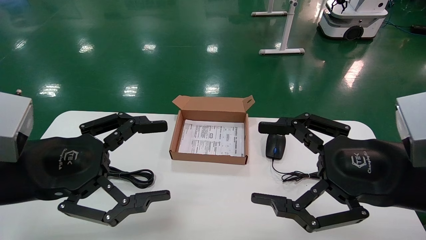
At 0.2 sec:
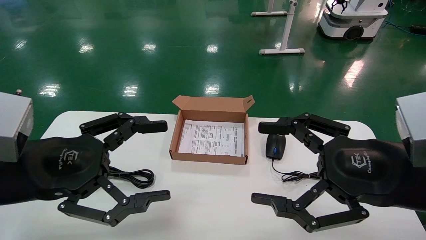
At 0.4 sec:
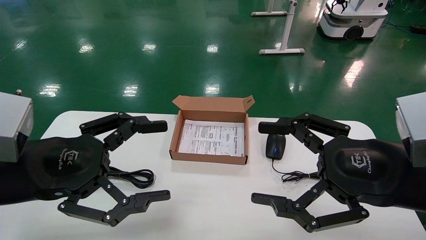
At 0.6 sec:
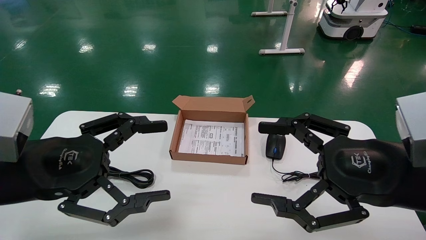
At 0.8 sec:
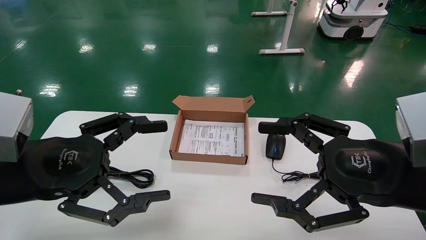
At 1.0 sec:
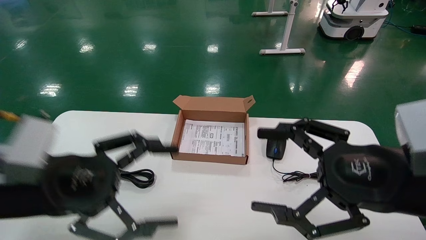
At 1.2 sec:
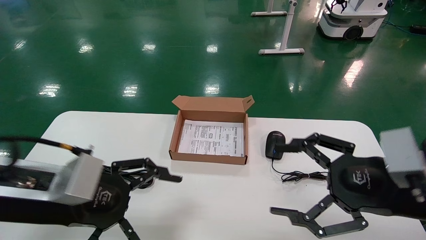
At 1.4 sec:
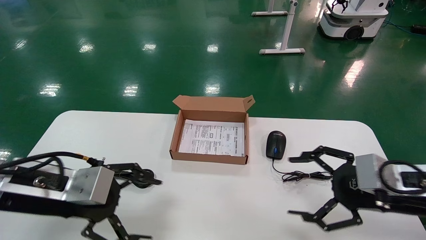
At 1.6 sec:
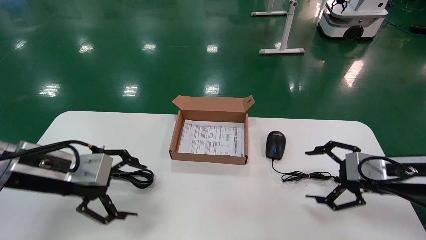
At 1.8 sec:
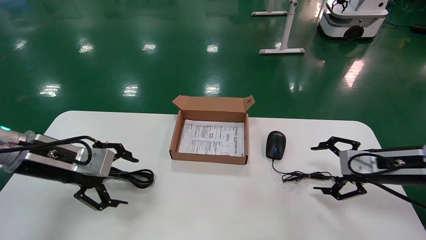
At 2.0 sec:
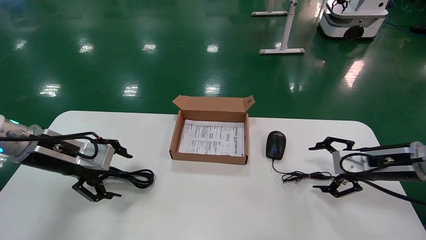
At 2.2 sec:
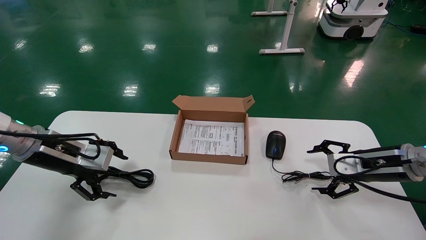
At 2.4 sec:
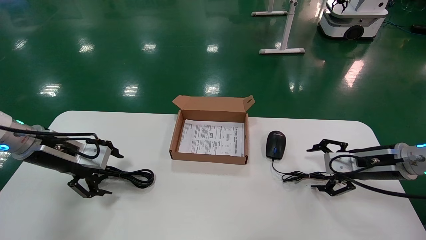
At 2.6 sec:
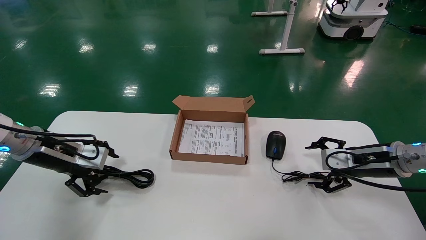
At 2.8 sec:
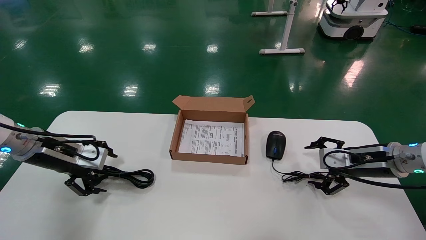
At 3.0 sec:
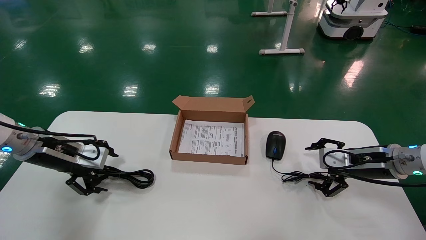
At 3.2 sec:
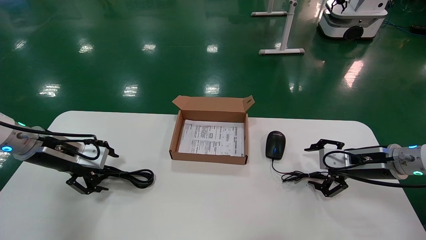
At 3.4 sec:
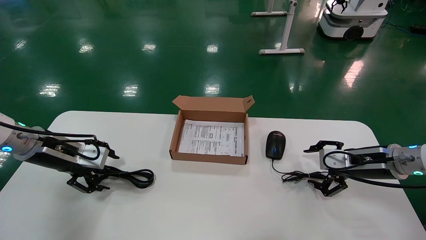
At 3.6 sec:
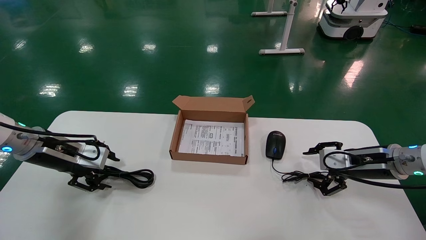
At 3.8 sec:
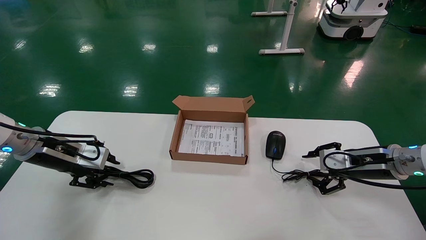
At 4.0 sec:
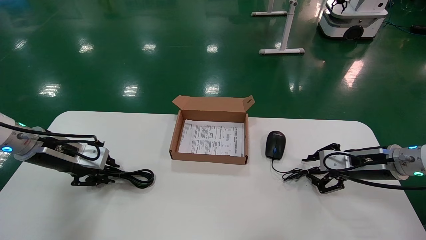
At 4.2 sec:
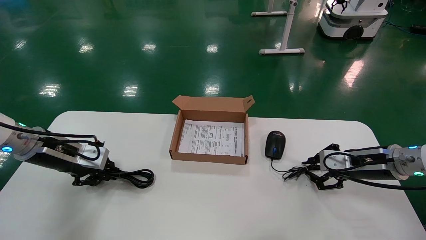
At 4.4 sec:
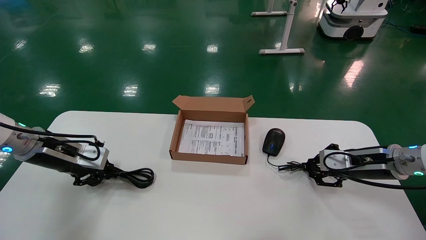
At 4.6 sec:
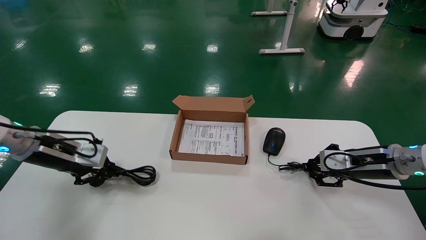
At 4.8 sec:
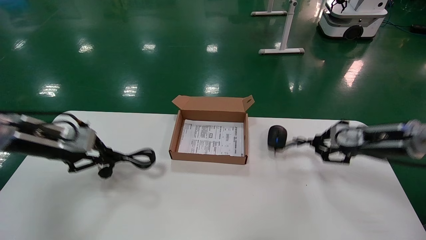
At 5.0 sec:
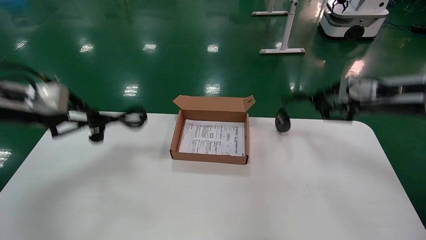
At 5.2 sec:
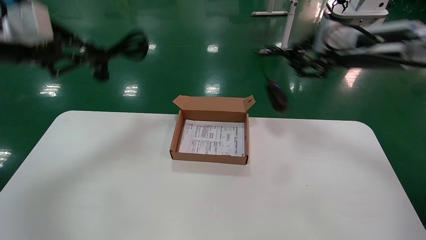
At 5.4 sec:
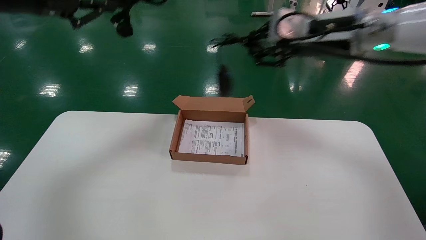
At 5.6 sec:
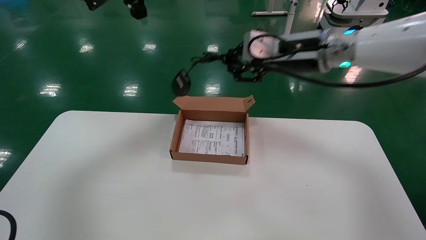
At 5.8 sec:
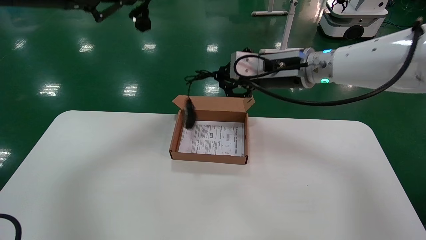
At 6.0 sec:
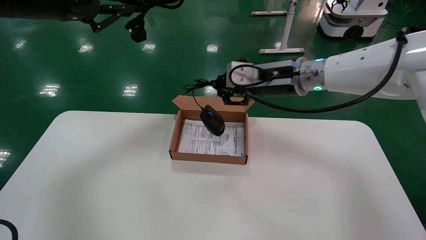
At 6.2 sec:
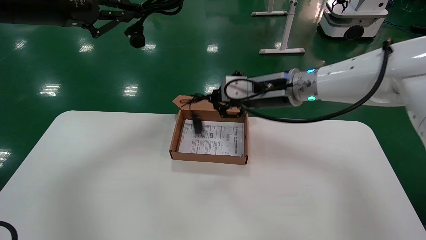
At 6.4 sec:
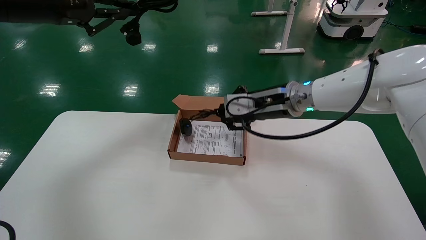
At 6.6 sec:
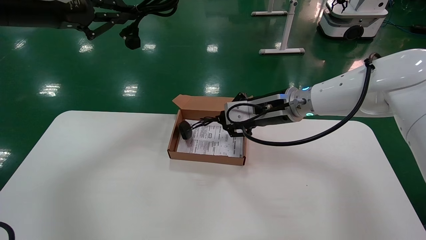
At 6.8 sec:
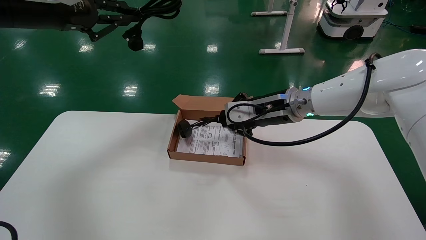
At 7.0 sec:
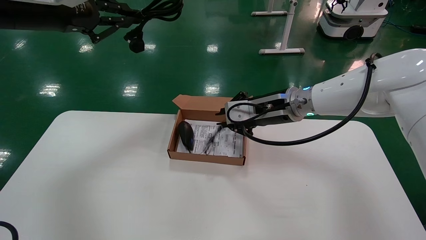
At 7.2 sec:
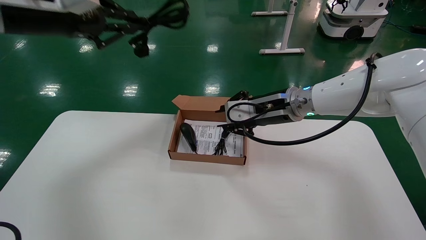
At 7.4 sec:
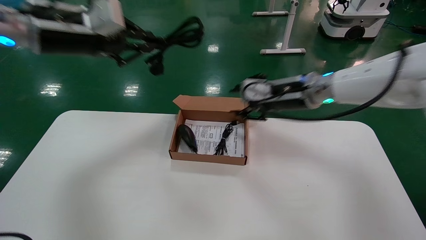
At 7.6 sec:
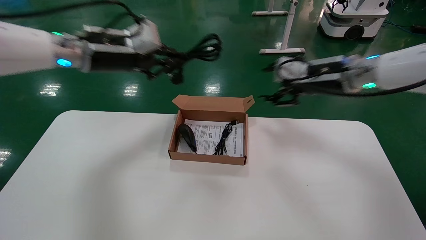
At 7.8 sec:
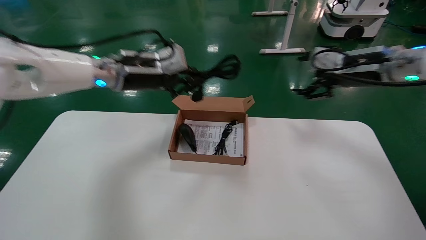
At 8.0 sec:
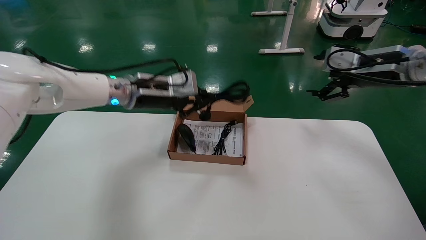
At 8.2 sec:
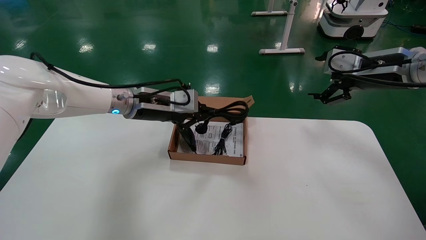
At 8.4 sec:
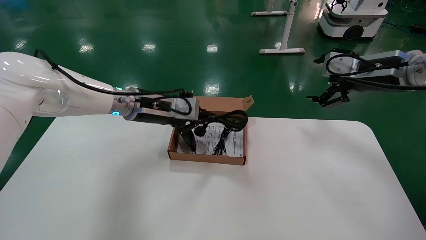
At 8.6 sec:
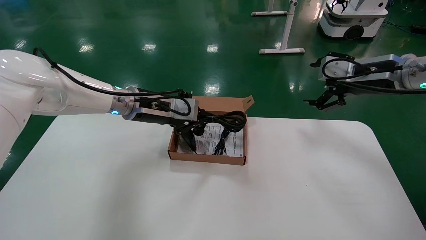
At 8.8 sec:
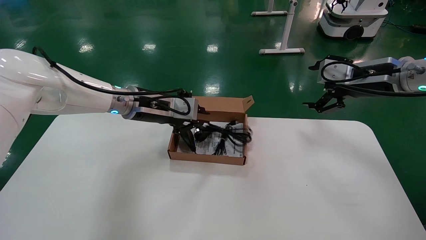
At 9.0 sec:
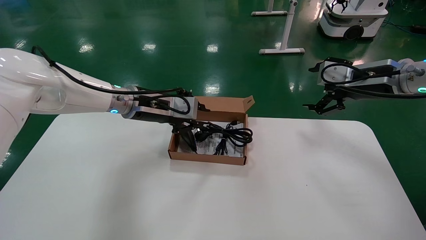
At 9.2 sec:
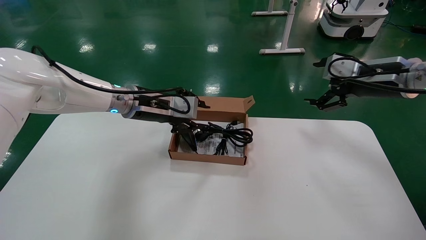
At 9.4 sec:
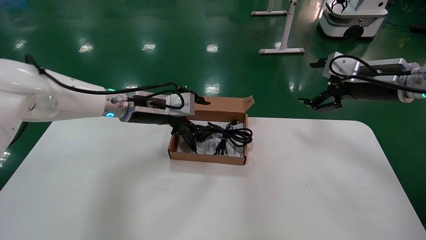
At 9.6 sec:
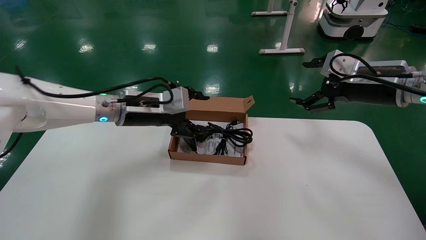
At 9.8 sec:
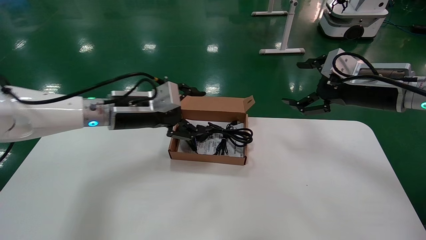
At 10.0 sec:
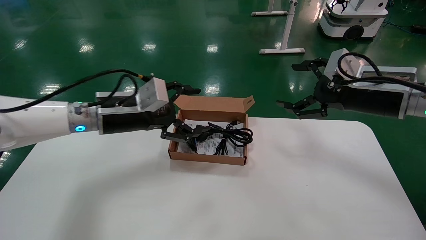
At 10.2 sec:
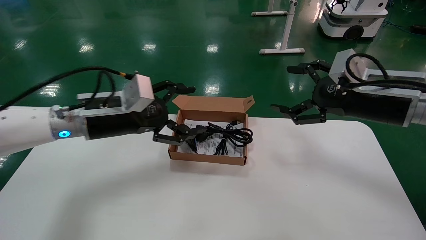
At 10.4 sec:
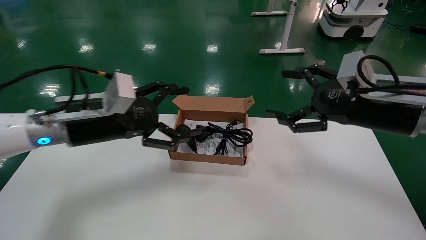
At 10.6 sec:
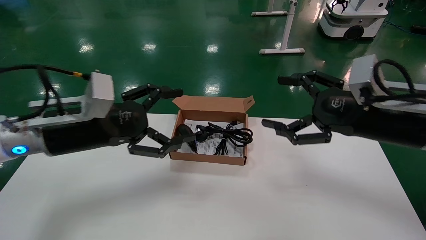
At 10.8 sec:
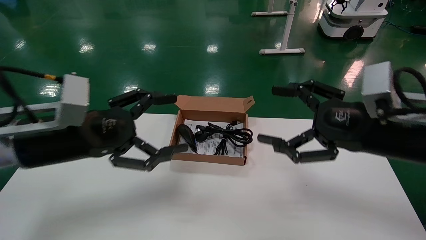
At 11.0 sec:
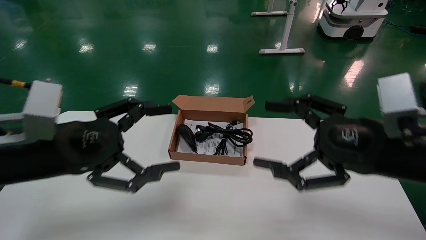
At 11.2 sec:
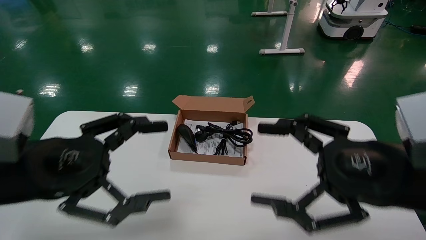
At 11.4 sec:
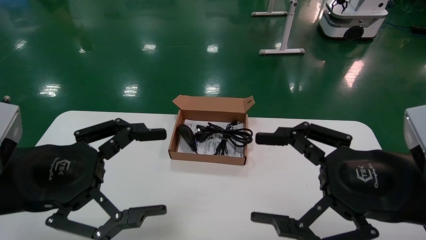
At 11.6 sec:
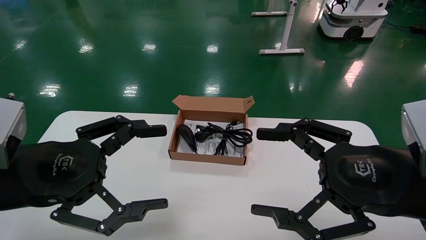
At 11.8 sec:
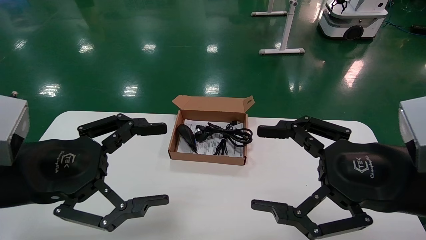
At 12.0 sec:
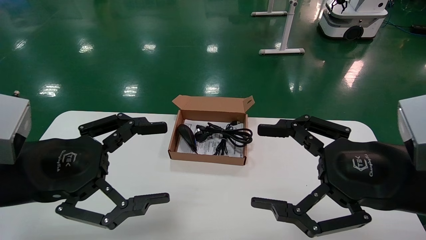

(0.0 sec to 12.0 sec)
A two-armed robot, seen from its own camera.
Step, 1.4 sec - 4.6 sec: Grab and lift both the mouse and power cord from the accessory packaging area at the same time.
Step, 4.8 sec - 9.2 sec: Place the mouse and power cord into the box.
0.0 sec - 1.6 sec: The right gripper shifts approximately 15 cm forward, to the right and downward; the left gripper heads forward, covering about 10 cm.
1.6 sec - 3.0 sec: The right gripper goes roughly 10 cm forward; the left gripper goes some 10 cm forward and to the left.
3.0 sec - 4.4 sec: The left gripper closes up, while the right gripper closes up.
4.4 sec - 6.0 sec: The right gripper heads to the left and upward, covering about 25 cm. The left gripper travels upward by roughly 25 cm.
6.0 sec - 7.6 sec: The right gripper shifts approximately 10 cm to the right, and opens its fingers. The left gripper is displaced downward, to the right and forward by about 15 cm.
7.6 sec - 9.0 sec: The left gripper goes some 10 cm downward and to the right; the right gripper heads to the right, covering some 10 cm, and opens its fingers.
9.0 sec - 10.4 sec: The right gripper heads backward, covering approximately 10 cm; the left gripper heads backward and to the left, covering about 15 cm, and opens its fingers.
10.4 sec - 12.0 sec: The grippers both shift backward by about 15 cm.

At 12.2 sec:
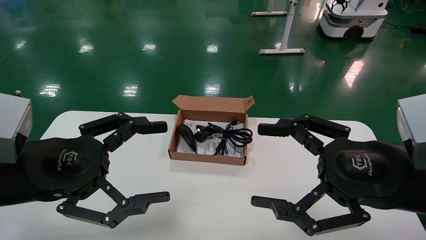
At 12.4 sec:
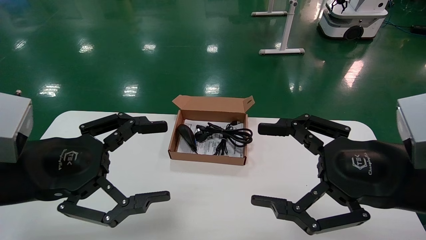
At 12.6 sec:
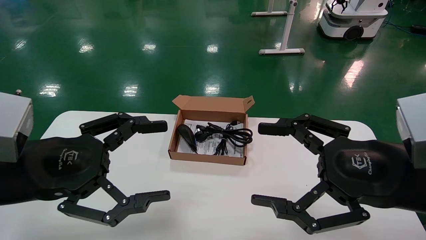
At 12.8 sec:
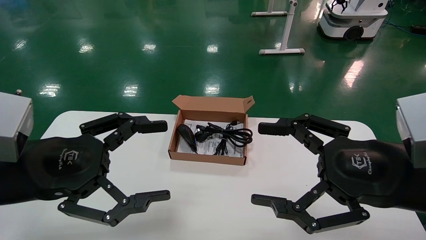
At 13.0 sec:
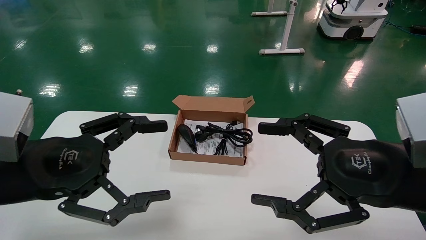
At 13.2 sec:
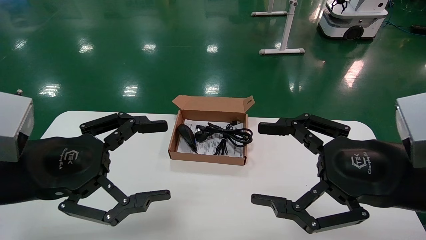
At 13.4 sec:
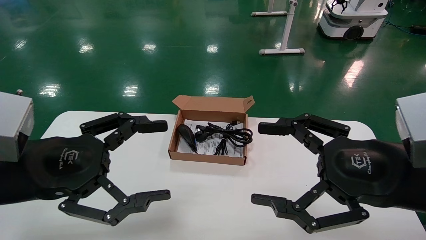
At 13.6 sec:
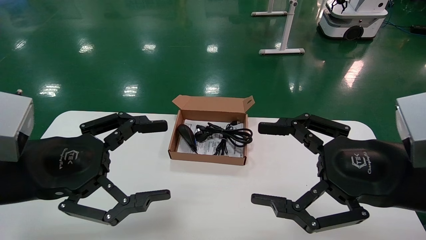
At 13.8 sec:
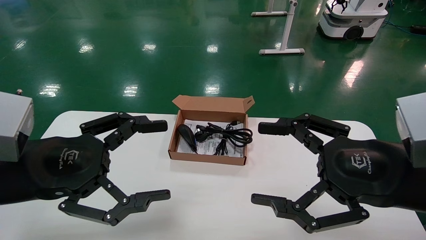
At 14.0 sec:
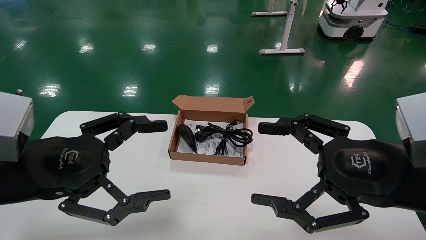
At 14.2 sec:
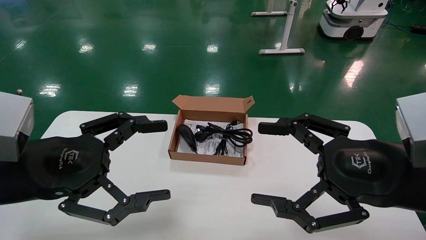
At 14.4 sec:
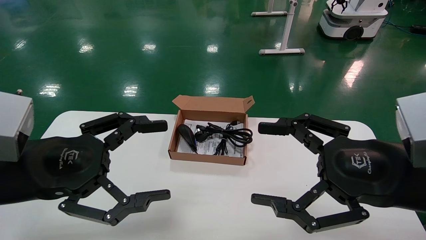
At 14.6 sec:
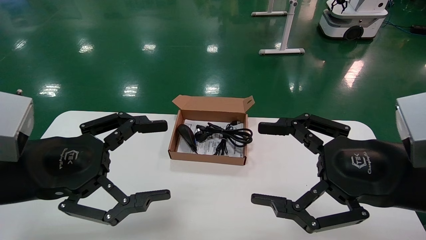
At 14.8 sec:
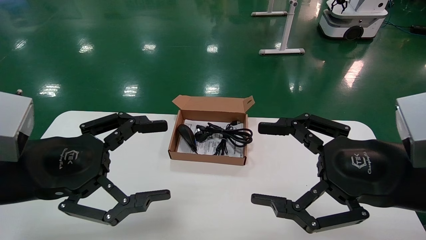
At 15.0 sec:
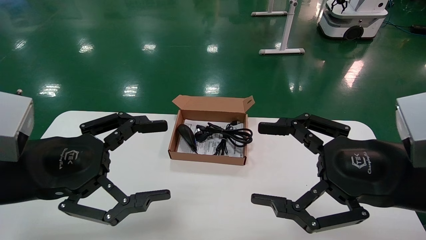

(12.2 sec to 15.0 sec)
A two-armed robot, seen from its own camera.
12.2 sec - 15.0 sec: The two grippers keep their place.
